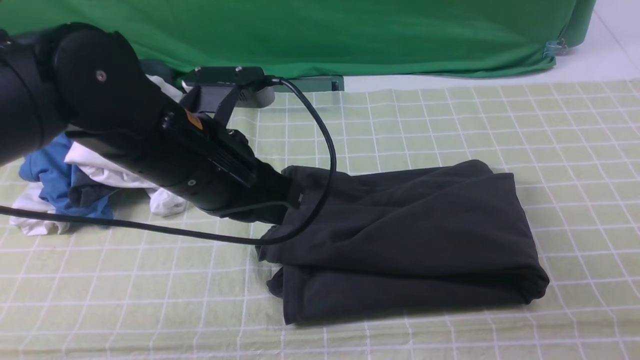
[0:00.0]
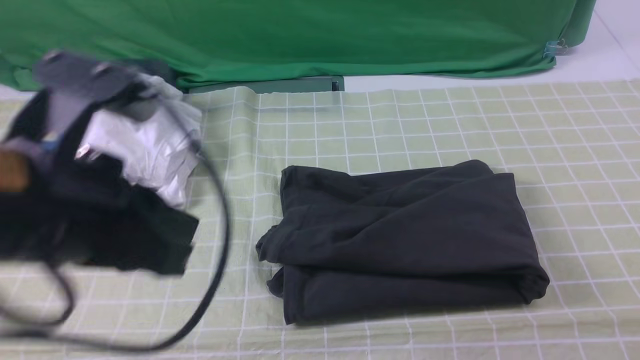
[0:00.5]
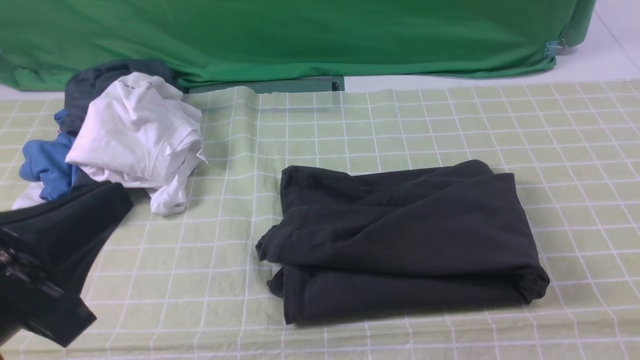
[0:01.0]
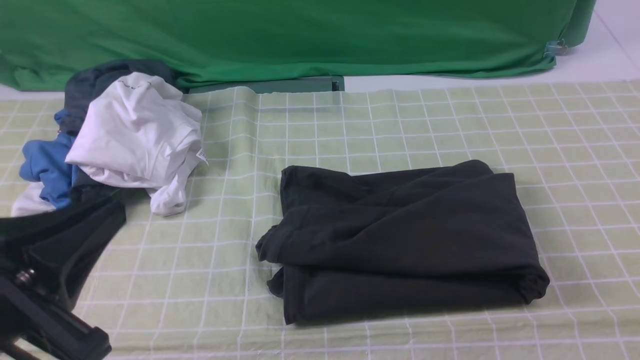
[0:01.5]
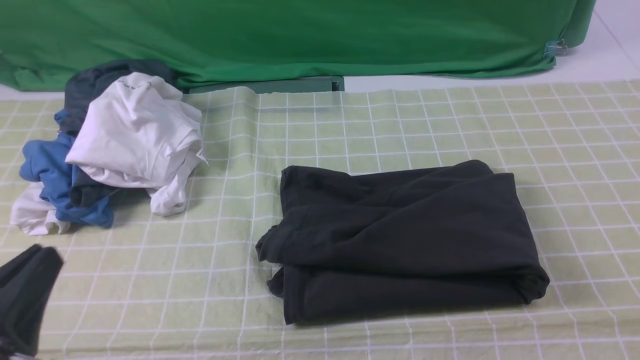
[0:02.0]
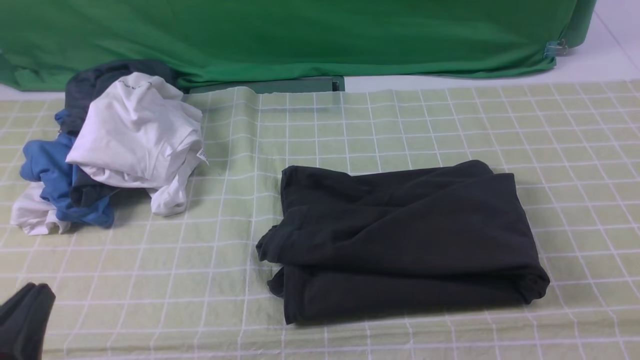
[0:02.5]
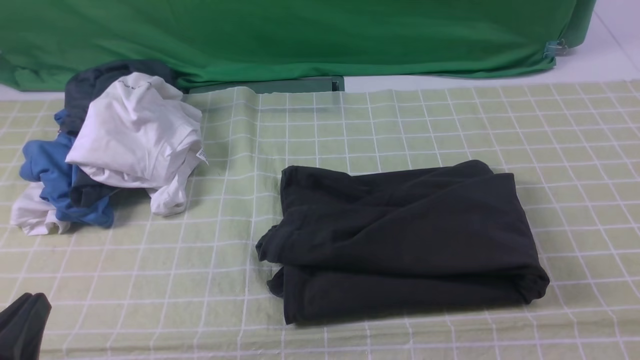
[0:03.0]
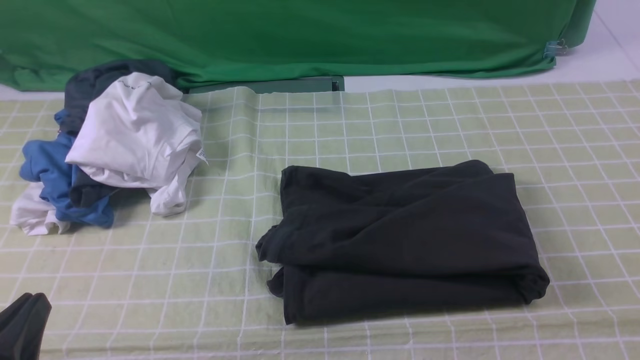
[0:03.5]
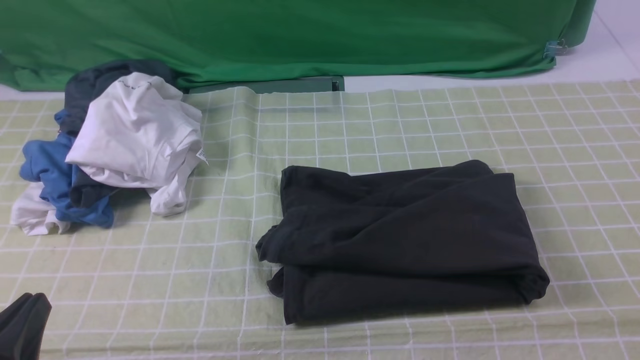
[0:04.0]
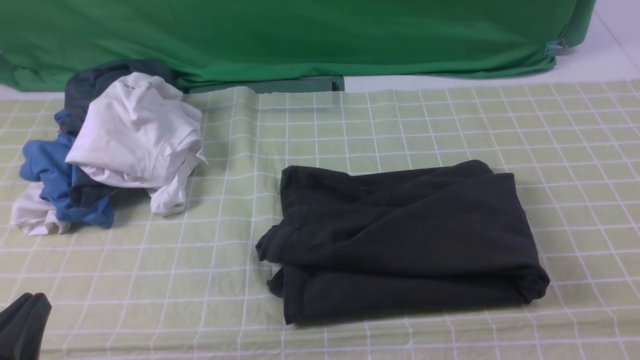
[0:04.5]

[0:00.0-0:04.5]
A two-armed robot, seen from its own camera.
0:00.0 to 0:02.0: The left gripper moves backward and to the left, approximately 25 cm.
0:02.0 to 0:04.5: There are only small adjustments of the grippers.
